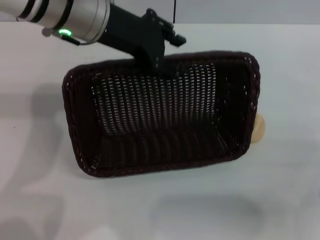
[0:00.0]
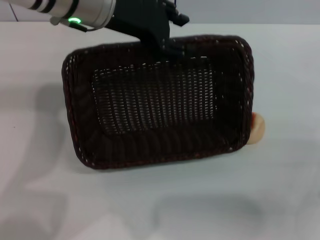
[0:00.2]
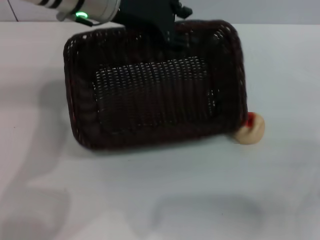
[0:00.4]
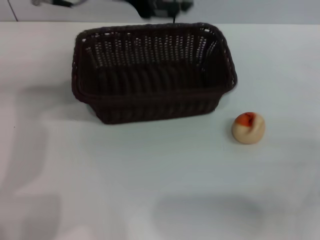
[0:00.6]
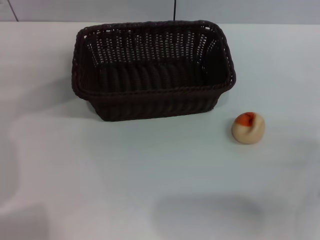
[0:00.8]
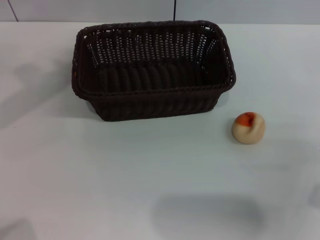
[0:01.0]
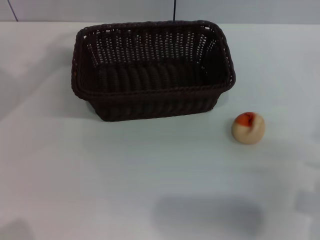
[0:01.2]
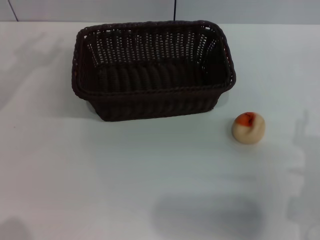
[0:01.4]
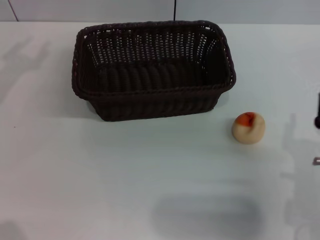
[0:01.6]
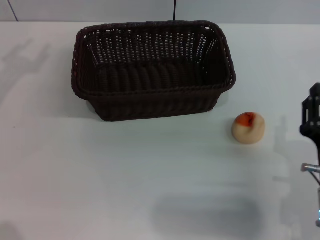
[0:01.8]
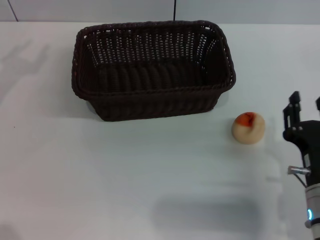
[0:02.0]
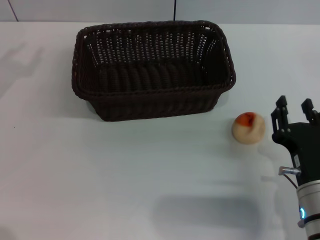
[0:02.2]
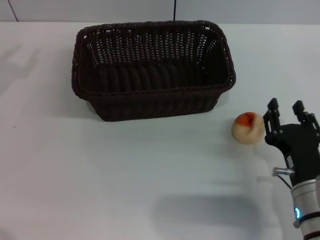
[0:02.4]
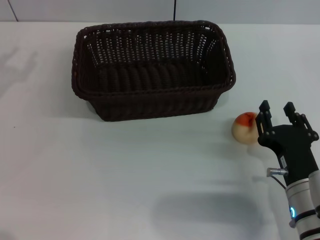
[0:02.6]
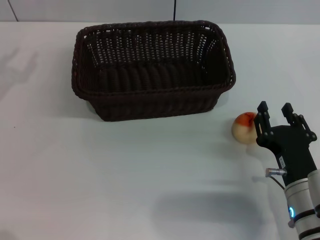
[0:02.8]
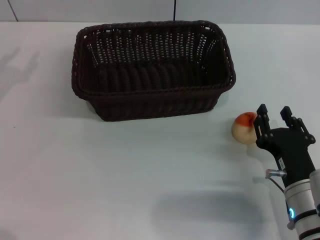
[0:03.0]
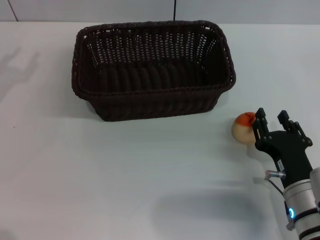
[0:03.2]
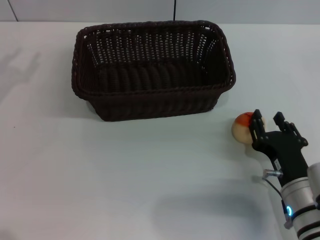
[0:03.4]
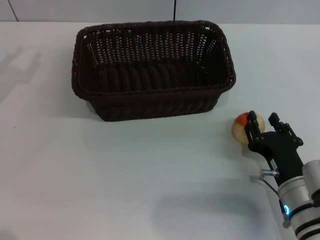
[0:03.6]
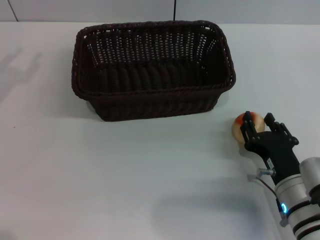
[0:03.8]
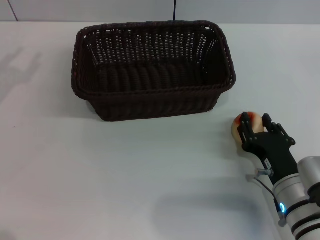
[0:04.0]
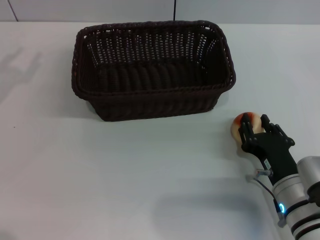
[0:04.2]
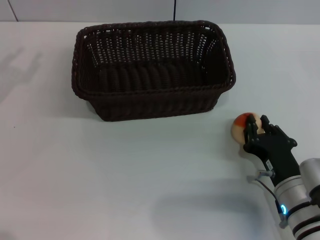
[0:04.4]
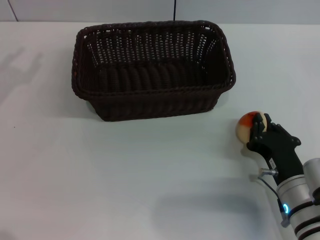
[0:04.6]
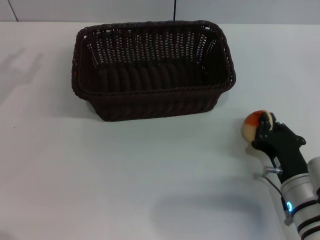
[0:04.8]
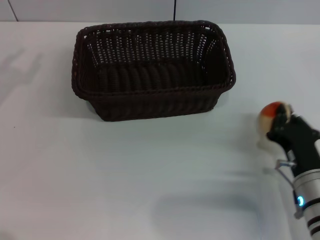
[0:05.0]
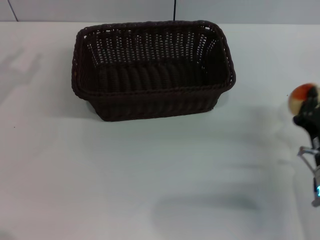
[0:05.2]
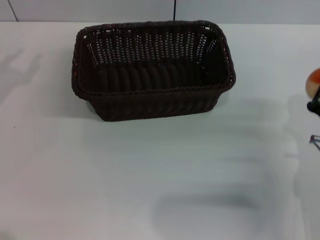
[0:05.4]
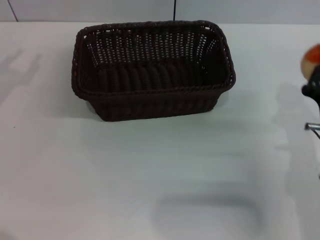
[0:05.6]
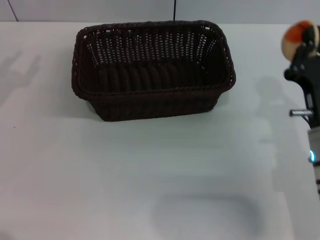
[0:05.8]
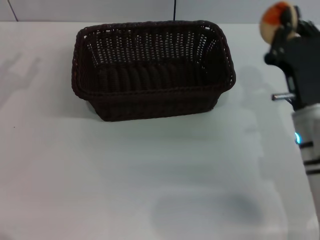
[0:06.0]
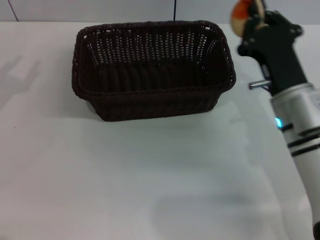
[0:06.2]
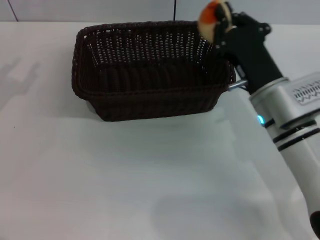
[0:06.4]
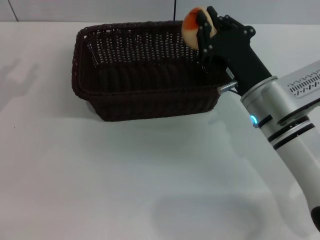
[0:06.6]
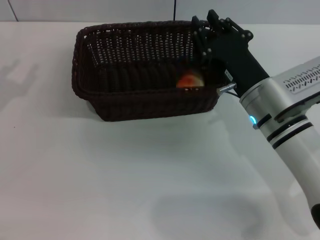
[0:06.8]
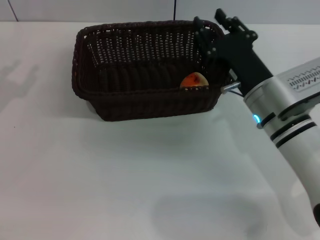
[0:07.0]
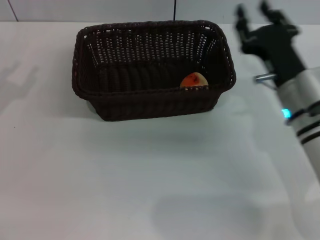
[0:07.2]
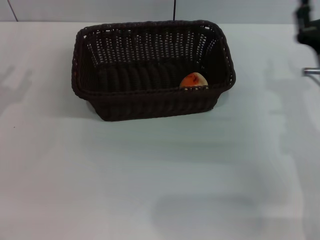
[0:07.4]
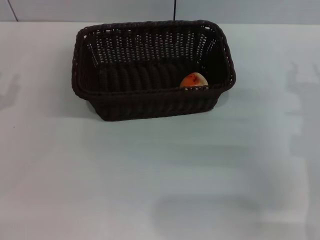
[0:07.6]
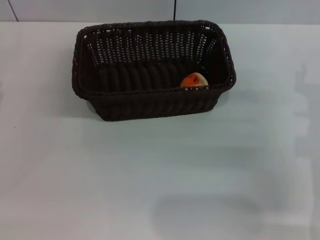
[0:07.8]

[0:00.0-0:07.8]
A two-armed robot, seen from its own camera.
Step, 0:00.6 to 0:05.2: Pick up the egg yolk pastry with the right gripper.
Step, 0:05.6 to 0:07.0: Place the egg yolk pastry into the basket with the right gripper.
0:00.0 to 0:01.6: The left gripper shifts roughly 25 cm to the left. The right gripper goes roughly 10 cm to the left.
0:01.6 to 0:03.2: The right gripper ends up approximately 5 cm from where it was.
0:03.2 to 0:04.6: The right gripper closes up.
0:04.6 to 0:06.2: The right gripper heads forward and upward, covering roughly 10 cm, and closes up.
0:06.2 to 0:07.8: The right gripper heads to the right, covering about 10 cm, and opens up.
